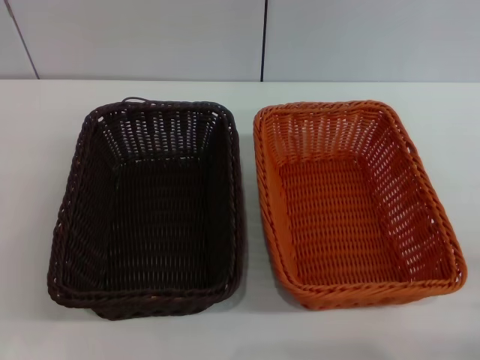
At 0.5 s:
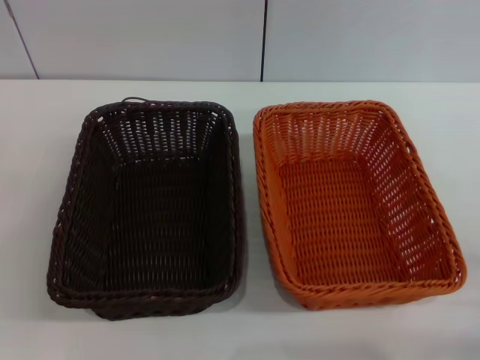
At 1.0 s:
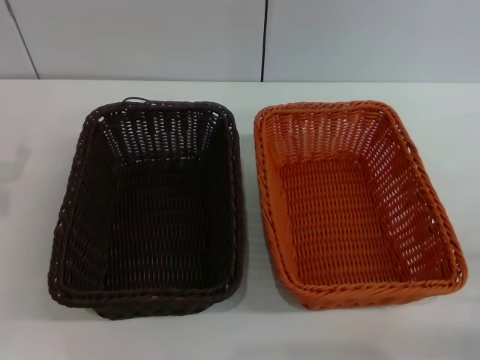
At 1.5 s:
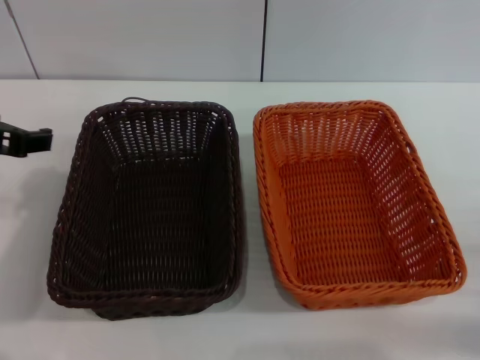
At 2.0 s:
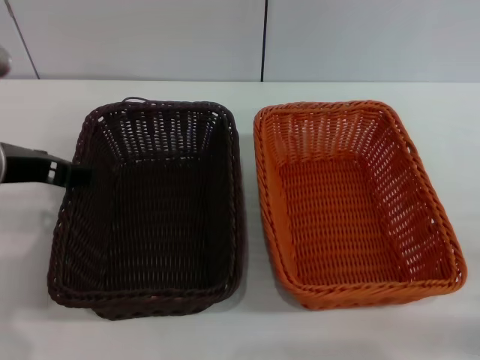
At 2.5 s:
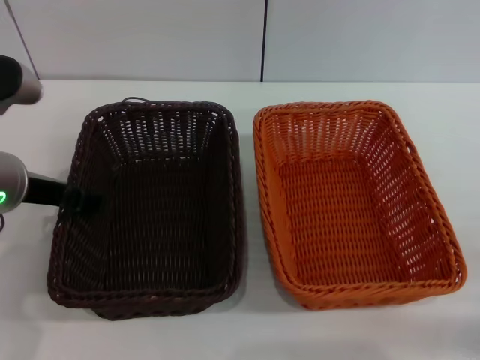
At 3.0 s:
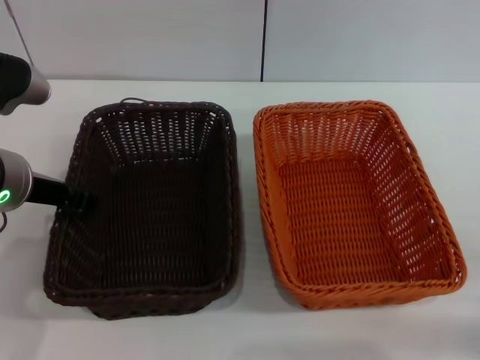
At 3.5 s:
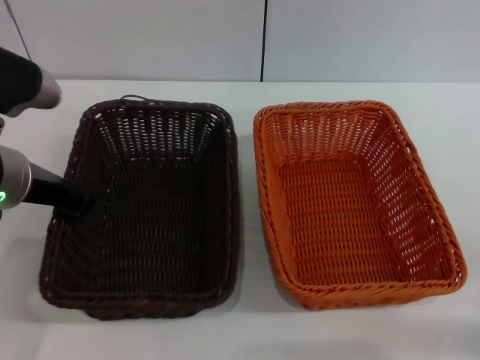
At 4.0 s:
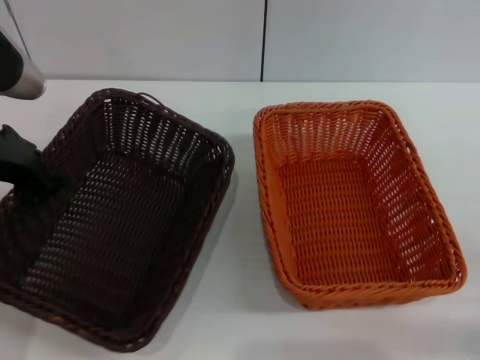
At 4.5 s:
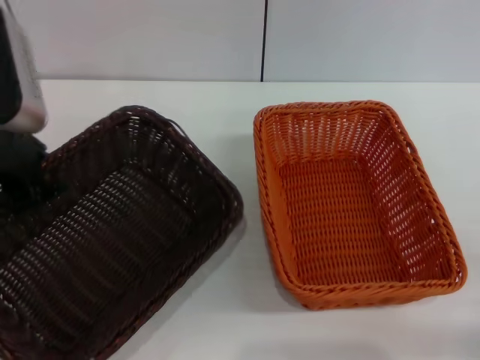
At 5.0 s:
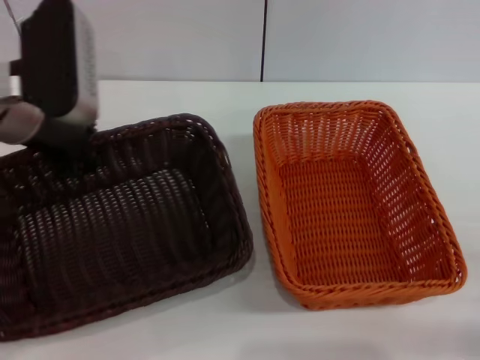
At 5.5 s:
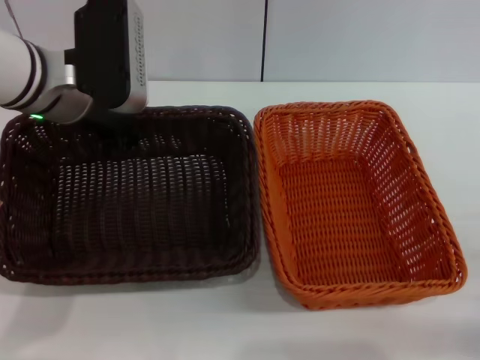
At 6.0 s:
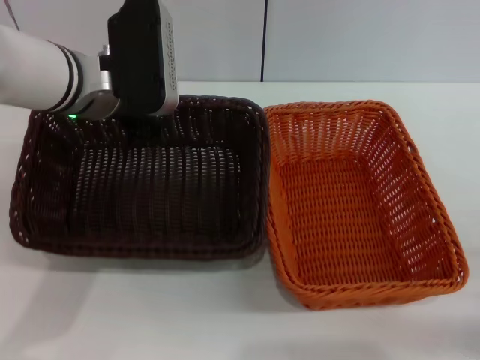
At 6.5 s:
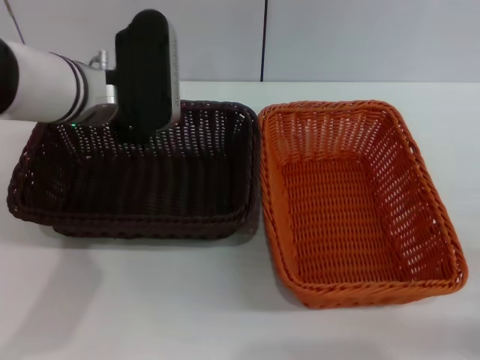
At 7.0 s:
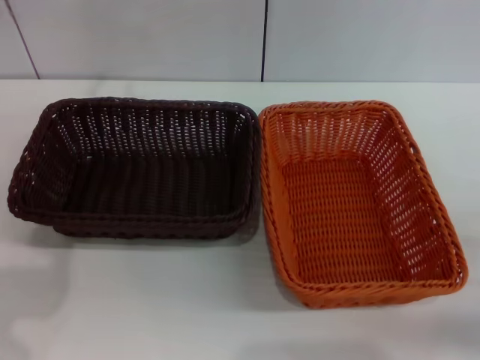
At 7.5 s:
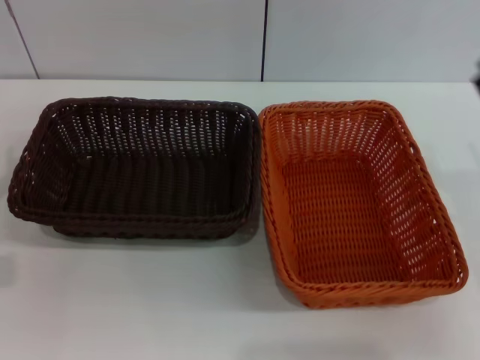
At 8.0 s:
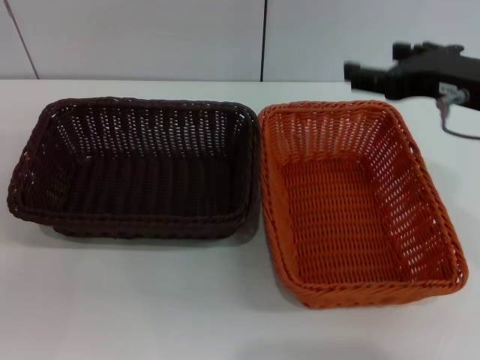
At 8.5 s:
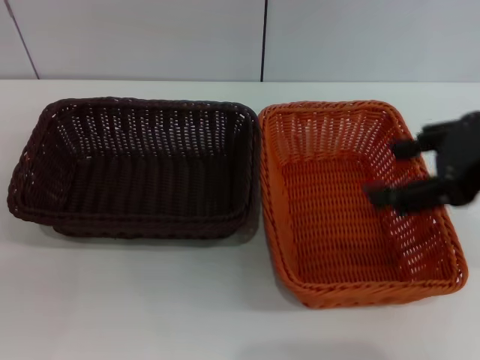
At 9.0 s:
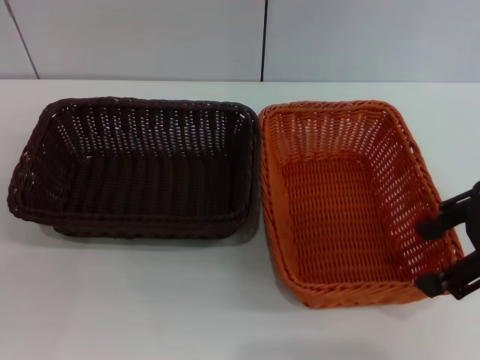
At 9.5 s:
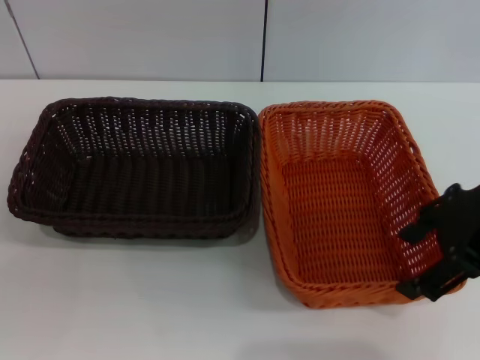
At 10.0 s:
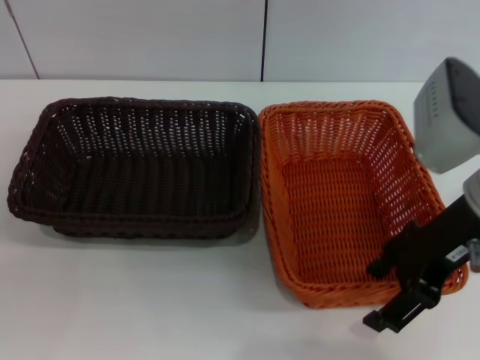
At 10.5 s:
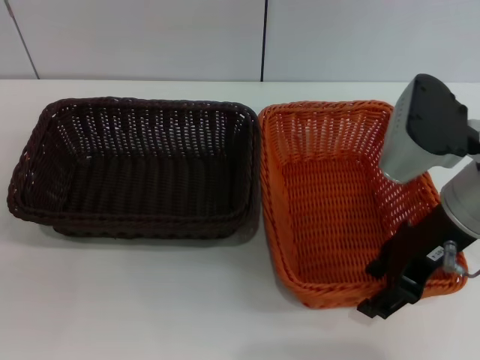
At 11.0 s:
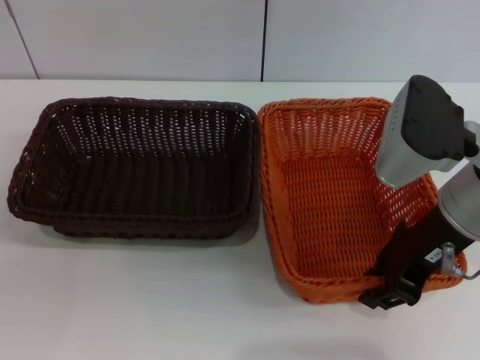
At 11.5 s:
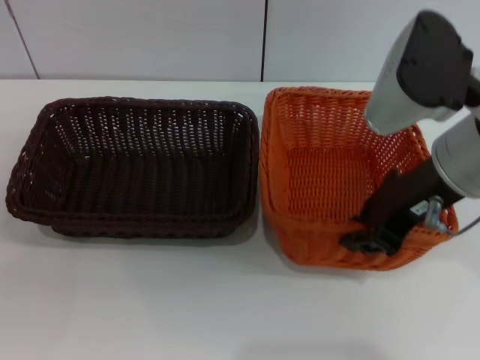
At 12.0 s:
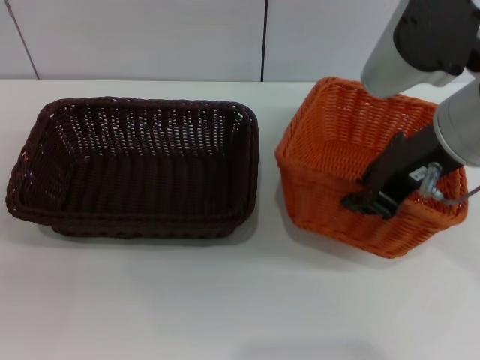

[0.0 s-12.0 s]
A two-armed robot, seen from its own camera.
Step, 0.0 to 4.0 s: Pick up the dark basket with the left gripper.
Step, 4.5 to 6.0 s: Place the dark basket in the center of view with the left gripper.
0.0 to 2.0 s: The left gripper travels upward and to the right by approximately 20 cm.
2.0 to 4.0 s: The left gripper closes its fingers.
4.0 to 6.0 s: The left gripper shifts some 10 cm to the right and forward.
6.0 to 8.0 s: The left gripper goes about 30 cm to the left, backward and downward, and opens up. The right gripper shifts about 30 cm upward, to the left and forward.
10.0 to 12.0 s: The right gripper heads upward, covering approximately 5 cm, and closes its fingers.

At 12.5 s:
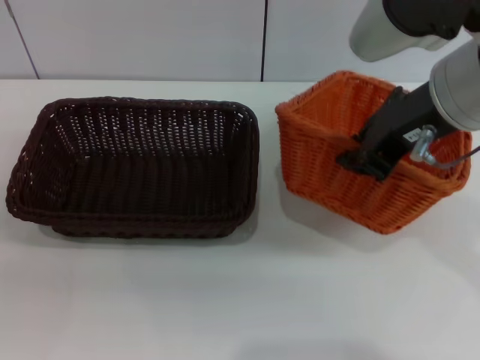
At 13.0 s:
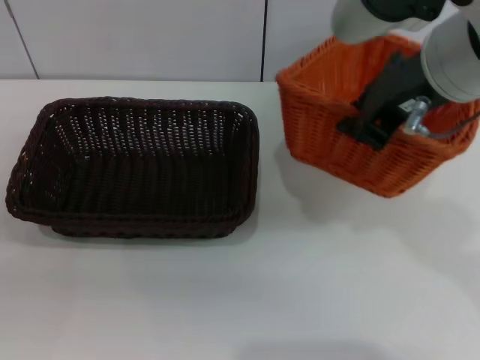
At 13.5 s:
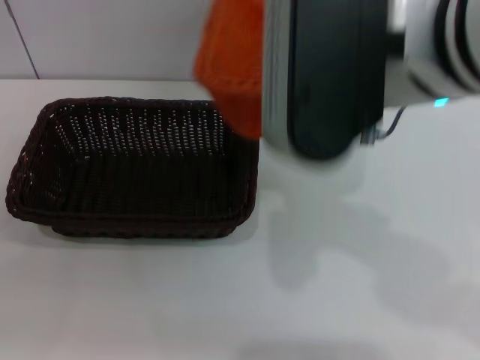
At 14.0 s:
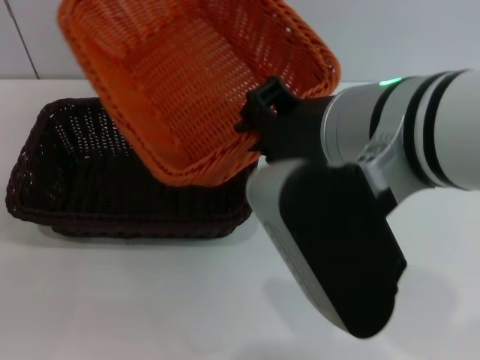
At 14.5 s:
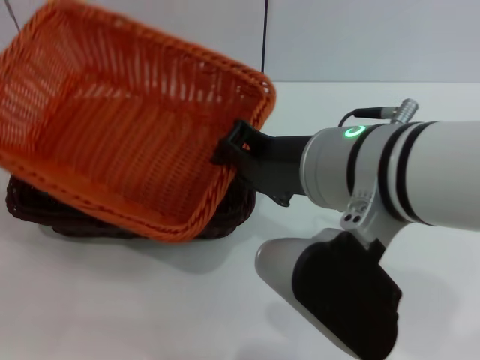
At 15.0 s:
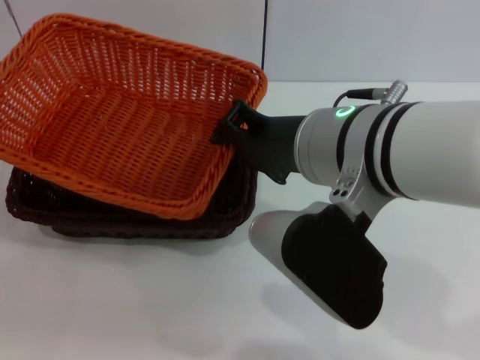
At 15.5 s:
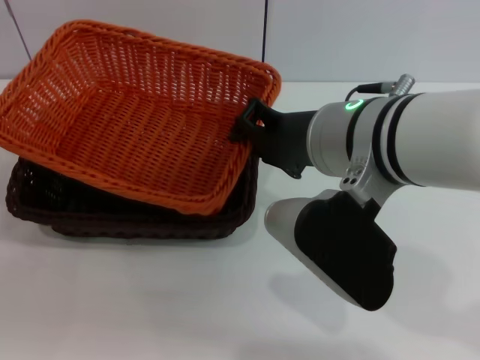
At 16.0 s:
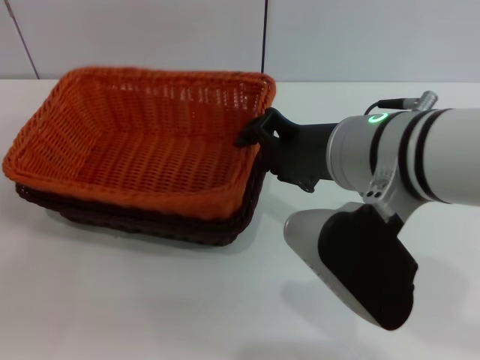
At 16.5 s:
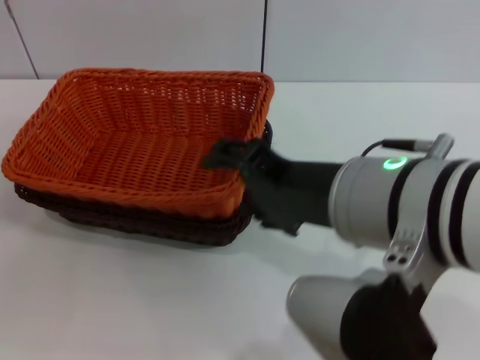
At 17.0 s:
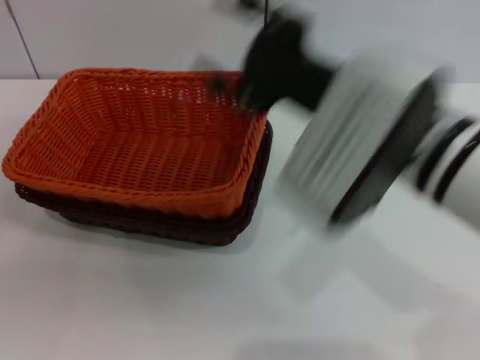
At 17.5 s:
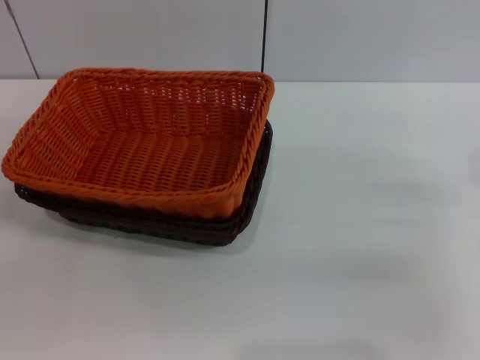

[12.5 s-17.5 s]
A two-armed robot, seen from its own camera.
Step, 12.5 to 16.0 s: Place the light basket on the dark basket with the right gripper.
12.5 to 15.0 s: The right gripper is displaced to the left and downward by approximately 10 cm.
15.0 to 17.5 s: The right gripper goes about 25 cm to the right and downward, and opens up.
